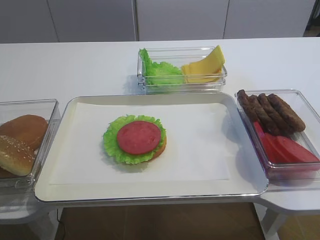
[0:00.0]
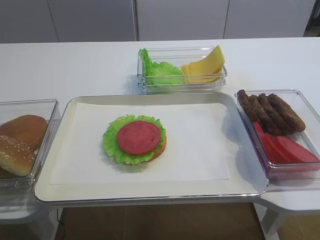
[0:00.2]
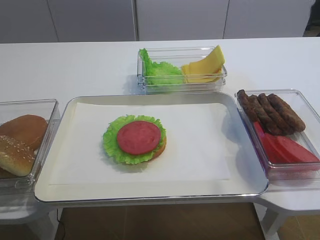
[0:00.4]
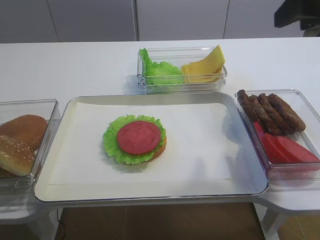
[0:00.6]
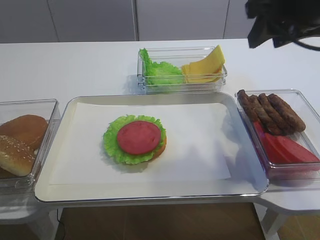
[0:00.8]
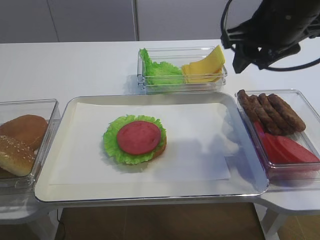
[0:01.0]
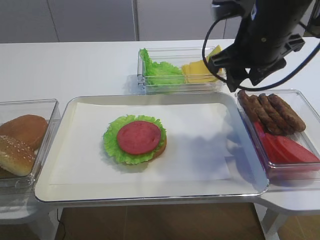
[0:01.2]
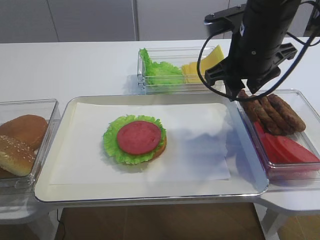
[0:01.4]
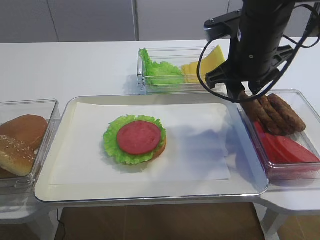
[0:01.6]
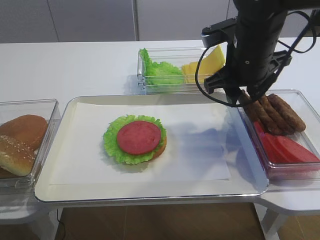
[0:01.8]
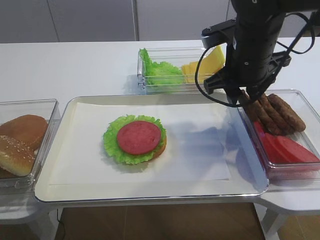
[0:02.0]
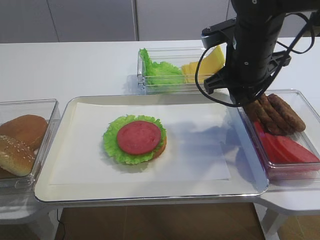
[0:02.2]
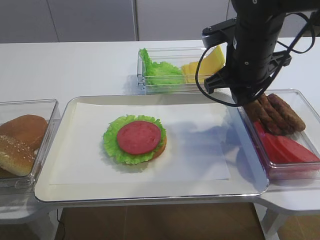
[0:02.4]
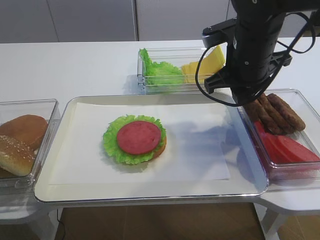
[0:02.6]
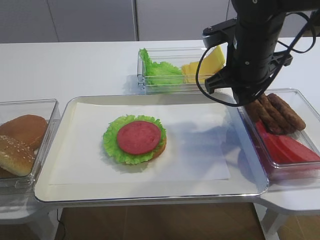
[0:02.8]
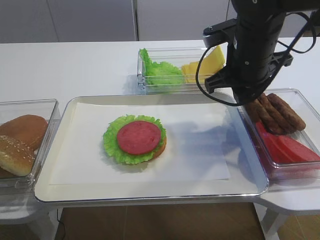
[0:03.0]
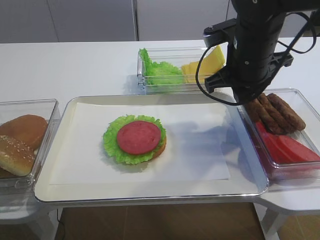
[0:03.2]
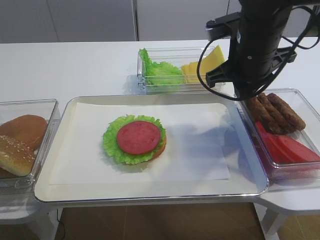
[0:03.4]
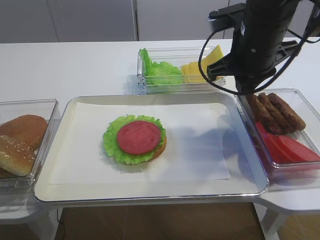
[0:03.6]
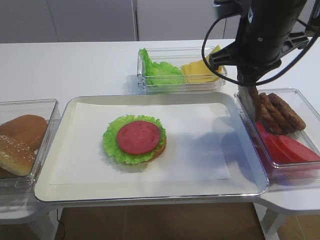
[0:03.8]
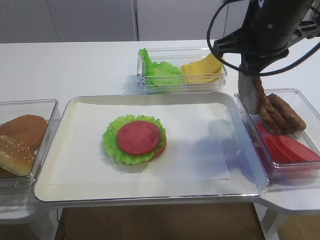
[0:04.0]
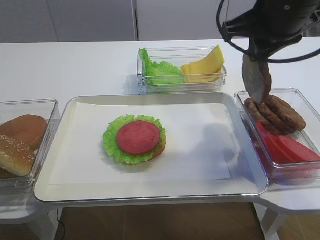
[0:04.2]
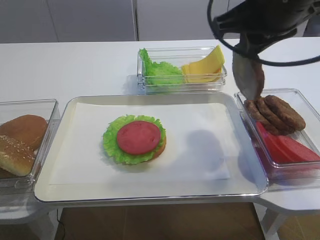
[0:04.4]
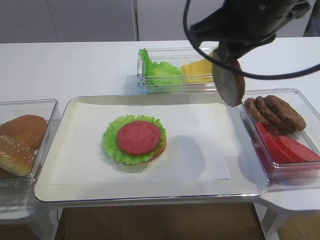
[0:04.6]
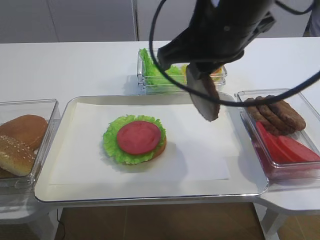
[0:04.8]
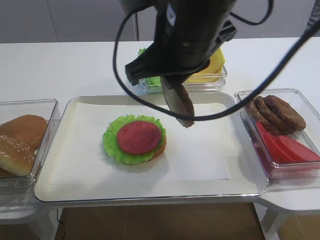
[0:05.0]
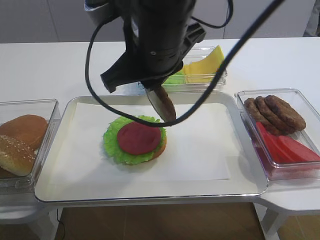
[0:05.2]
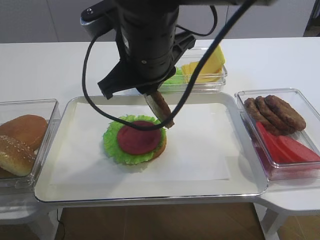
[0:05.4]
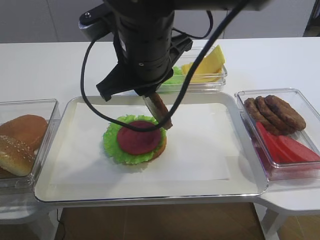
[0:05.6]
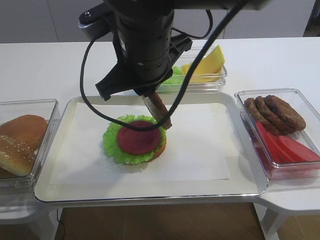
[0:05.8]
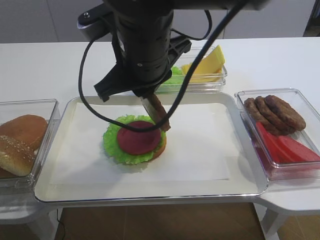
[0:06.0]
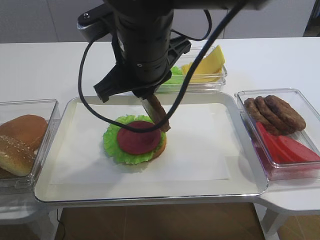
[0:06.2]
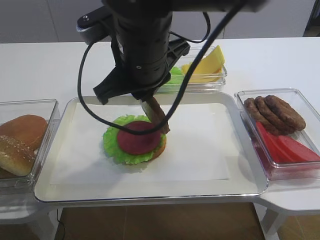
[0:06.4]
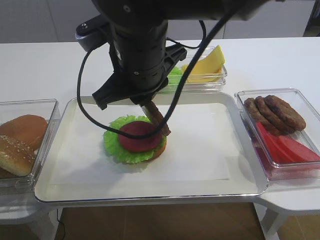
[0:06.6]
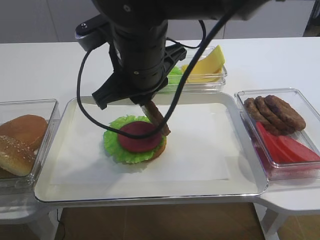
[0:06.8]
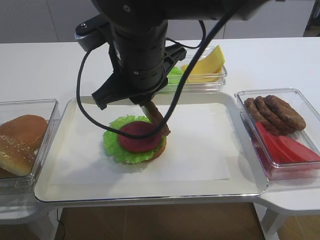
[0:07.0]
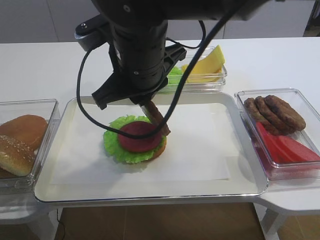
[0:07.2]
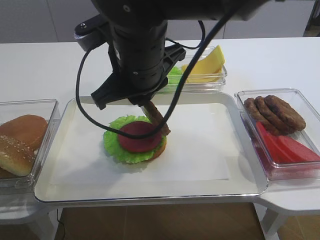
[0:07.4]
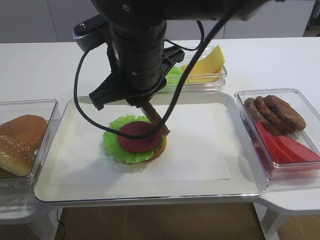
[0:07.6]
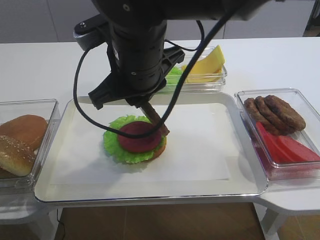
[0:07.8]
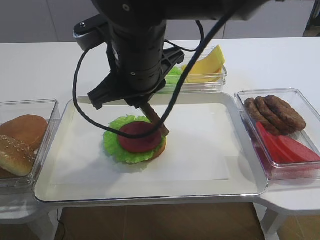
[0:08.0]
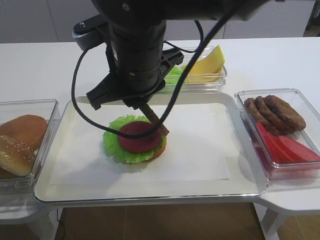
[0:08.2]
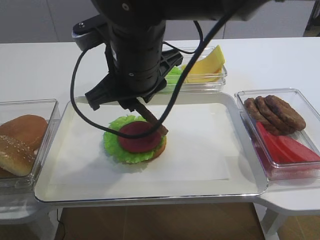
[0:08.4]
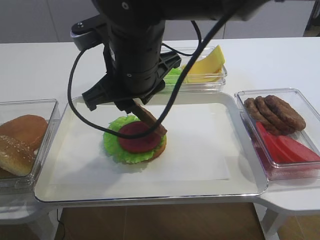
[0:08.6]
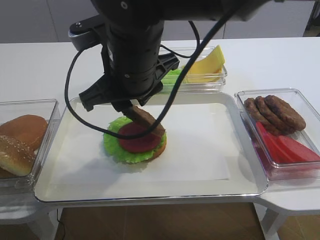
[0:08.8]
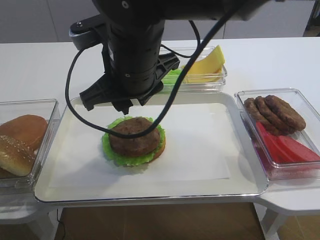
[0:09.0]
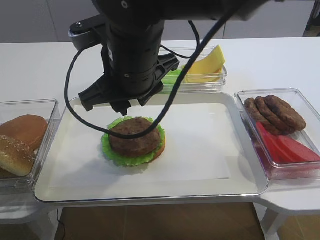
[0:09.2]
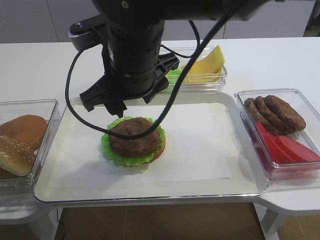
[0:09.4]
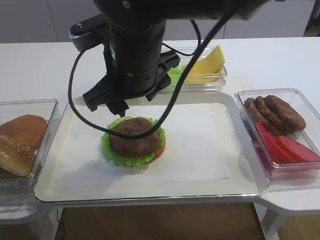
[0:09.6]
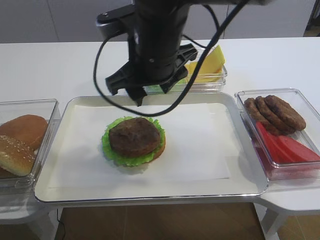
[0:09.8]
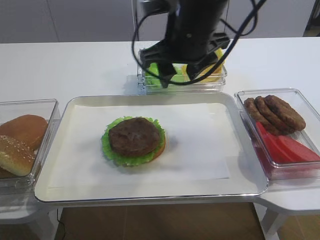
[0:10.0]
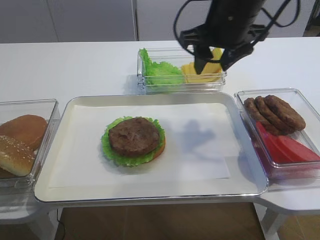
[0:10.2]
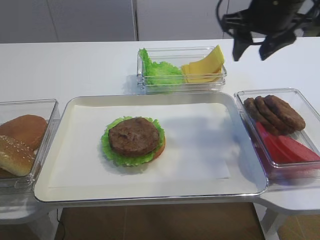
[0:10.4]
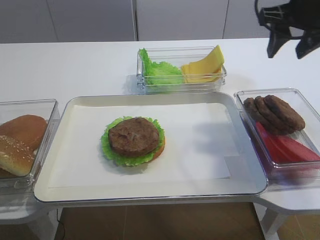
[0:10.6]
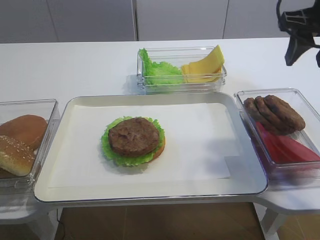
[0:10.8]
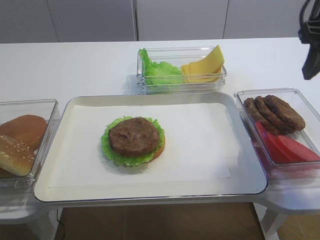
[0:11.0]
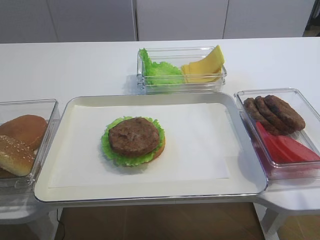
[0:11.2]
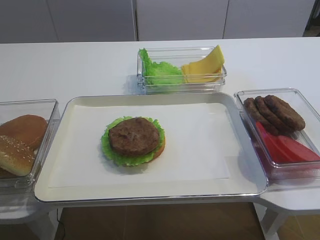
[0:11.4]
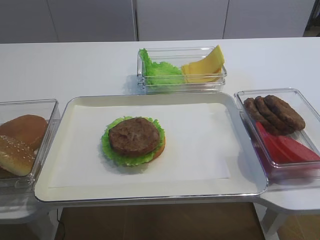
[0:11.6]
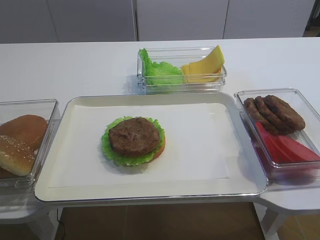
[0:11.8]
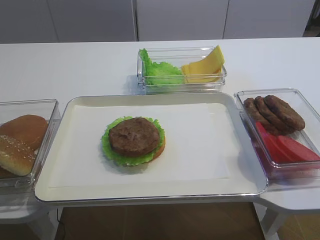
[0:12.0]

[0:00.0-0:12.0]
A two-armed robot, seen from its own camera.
Step, 0.0 to 4.0 s: Pick up the cutlet with the right gripper.
Step, 4.4 to 10.0 s: Place the cutlet on the tomato slice with the right gripper.
0.0 to 1.6 s: The right gripper heads forward and to the left, covering about 25 cm.
1.6 to 3.0 s: The right gripper closes.
3.0 to 4.4 s: The right gripper shifts approximately 10 cm upward and backward.
4.4 to 6.0 s: The right gripper heads to the left, covering approximately 15 cm.
6.0 to 7.6 s: The two grippers keep their place.
7.6 to 9.0 s: The right gripper opens up.
9.0 to 10.4 s: The right gripper shifts some 20 cm to the right and forward, and opens.
10.4 to 12.0 s: The right gripper travels backward by roughly 30 cm.

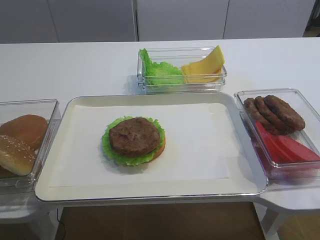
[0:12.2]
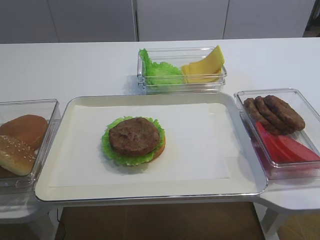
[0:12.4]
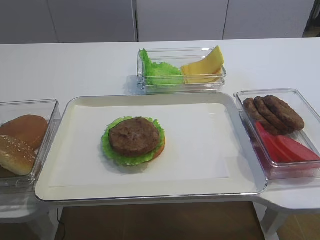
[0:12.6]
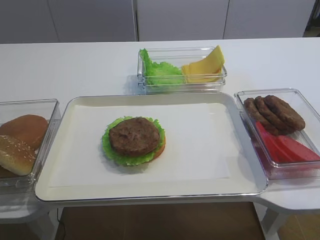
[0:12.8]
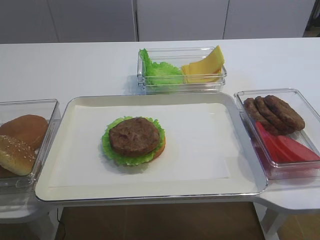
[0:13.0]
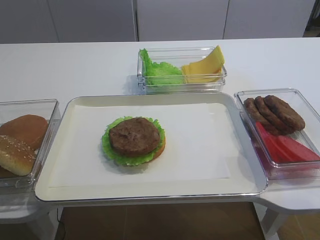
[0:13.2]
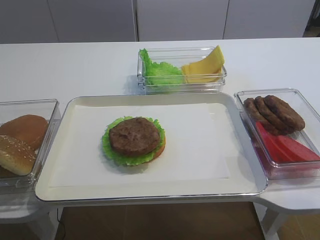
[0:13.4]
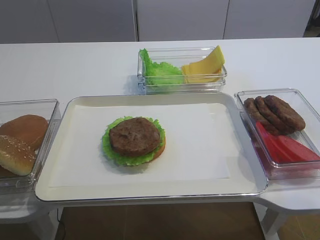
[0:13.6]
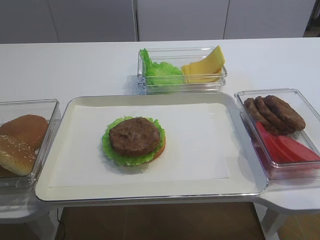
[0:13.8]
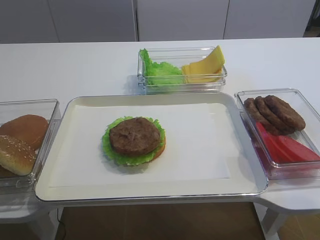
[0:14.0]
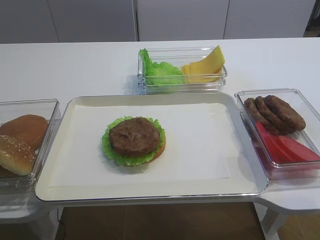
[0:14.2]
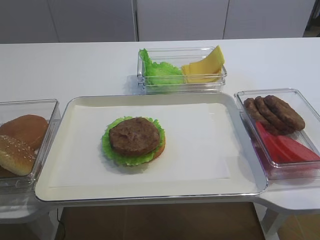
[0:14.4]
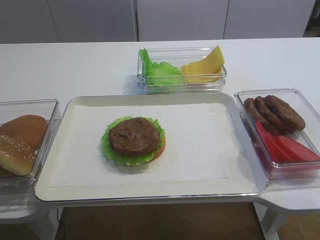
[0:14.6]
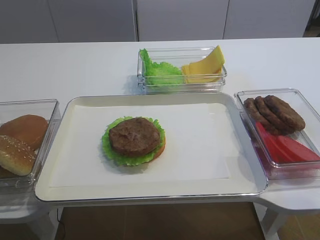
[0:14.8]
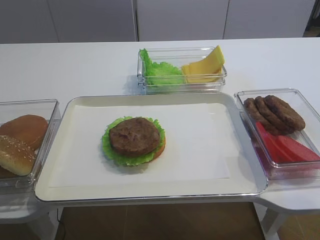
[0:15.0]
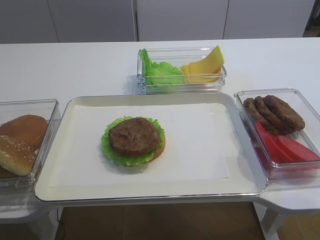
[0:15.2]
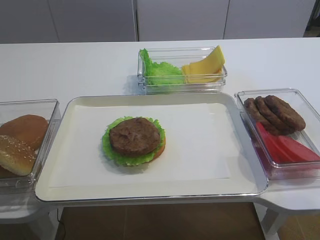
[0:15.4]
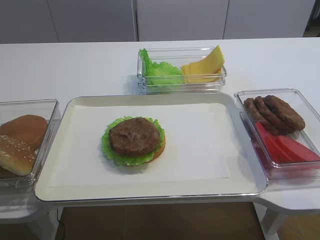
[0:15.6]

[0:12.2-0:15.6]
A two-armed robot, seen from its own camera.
13.8 to 15.6 s: Both grippers stay put.

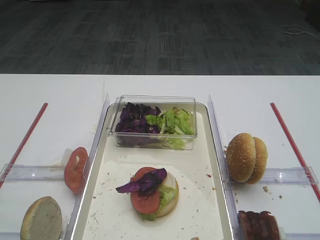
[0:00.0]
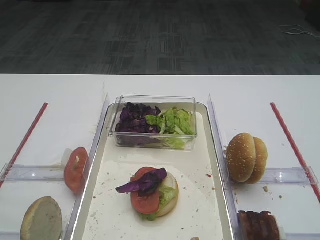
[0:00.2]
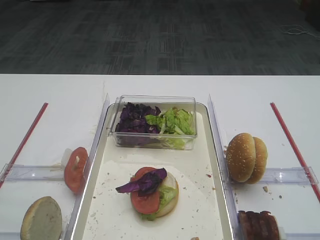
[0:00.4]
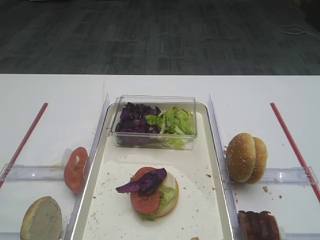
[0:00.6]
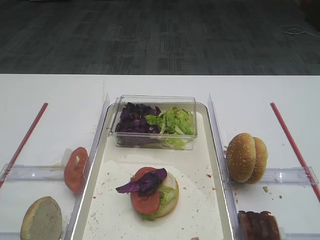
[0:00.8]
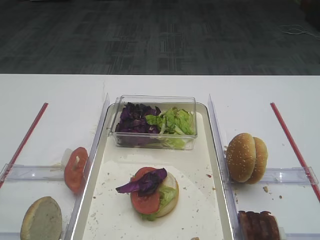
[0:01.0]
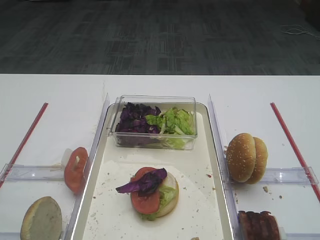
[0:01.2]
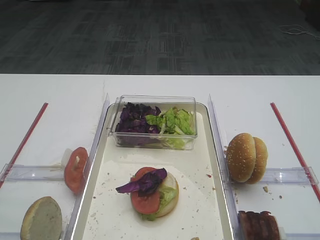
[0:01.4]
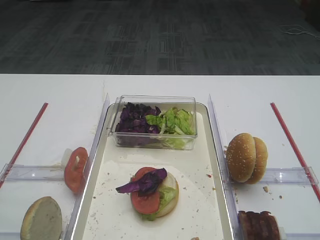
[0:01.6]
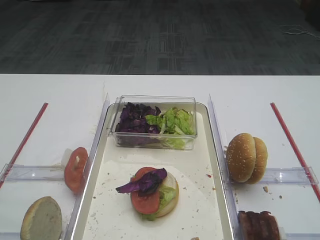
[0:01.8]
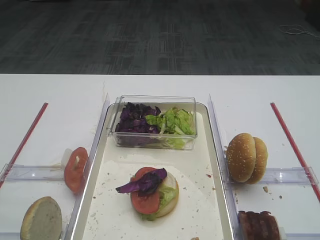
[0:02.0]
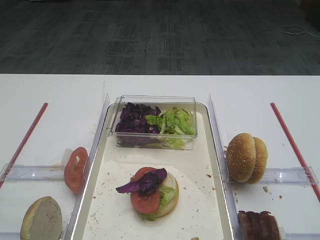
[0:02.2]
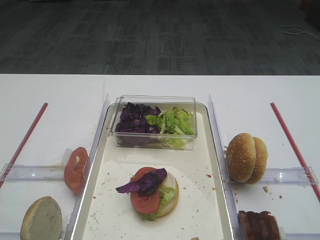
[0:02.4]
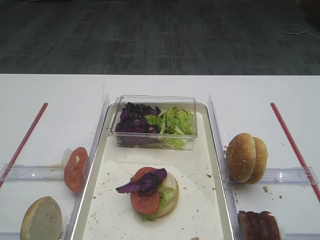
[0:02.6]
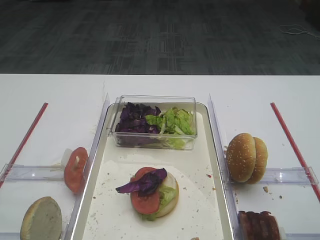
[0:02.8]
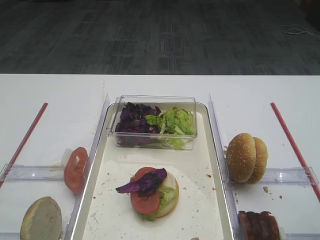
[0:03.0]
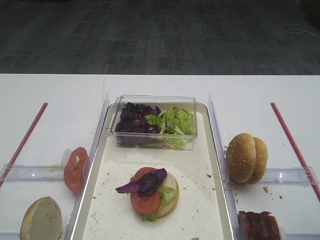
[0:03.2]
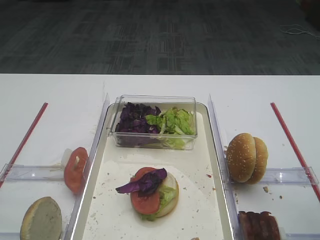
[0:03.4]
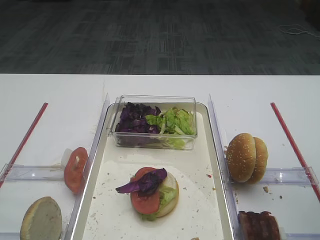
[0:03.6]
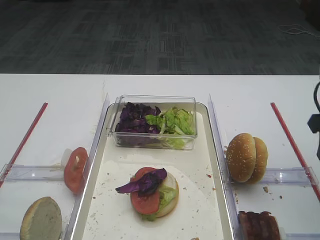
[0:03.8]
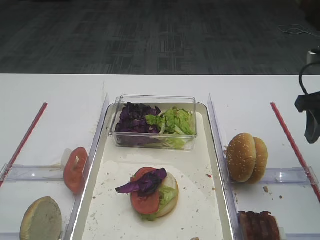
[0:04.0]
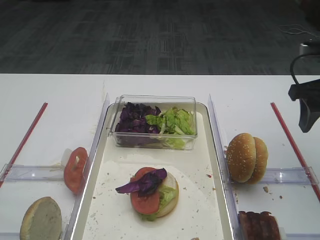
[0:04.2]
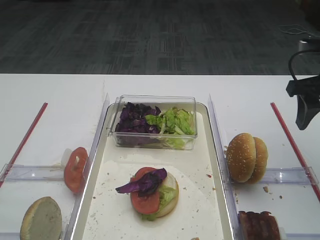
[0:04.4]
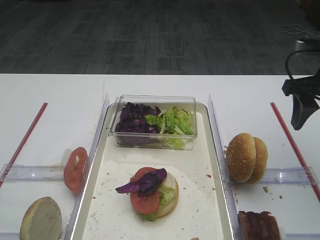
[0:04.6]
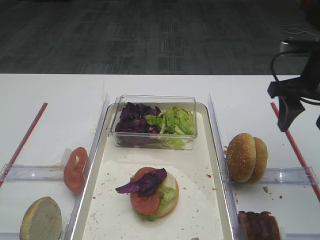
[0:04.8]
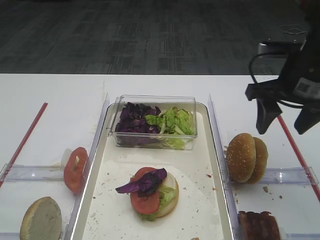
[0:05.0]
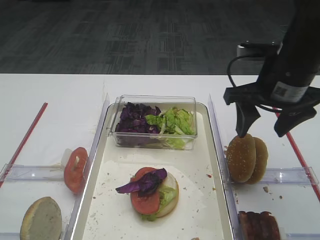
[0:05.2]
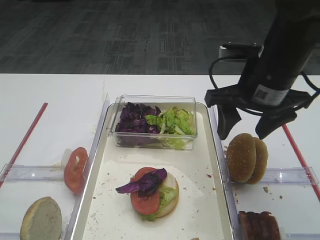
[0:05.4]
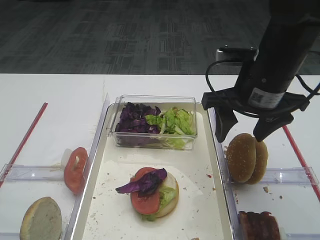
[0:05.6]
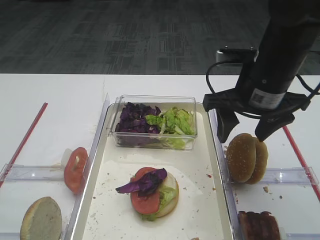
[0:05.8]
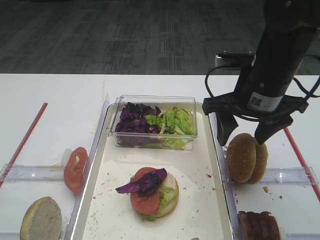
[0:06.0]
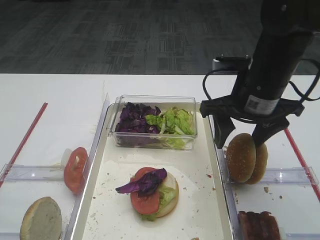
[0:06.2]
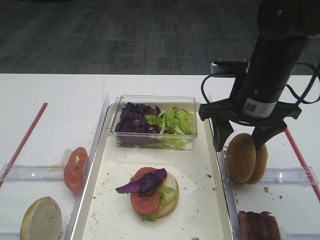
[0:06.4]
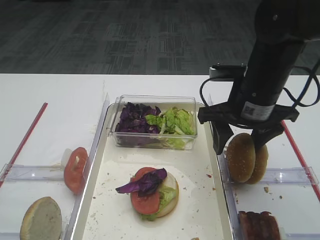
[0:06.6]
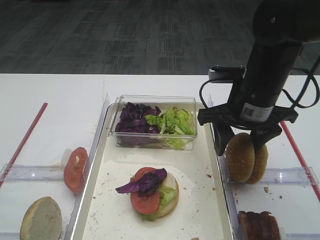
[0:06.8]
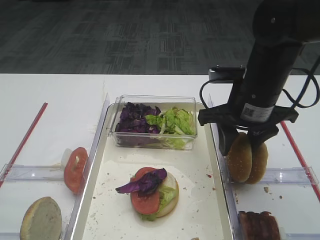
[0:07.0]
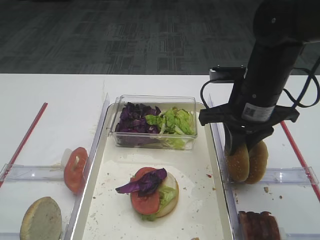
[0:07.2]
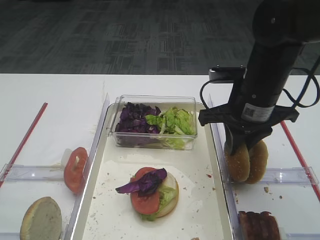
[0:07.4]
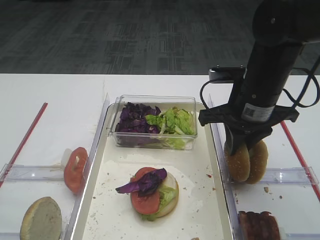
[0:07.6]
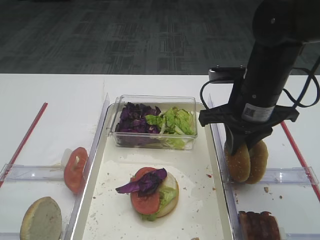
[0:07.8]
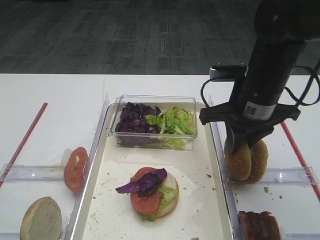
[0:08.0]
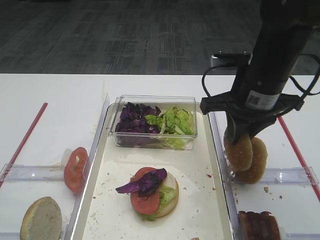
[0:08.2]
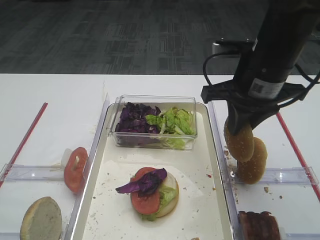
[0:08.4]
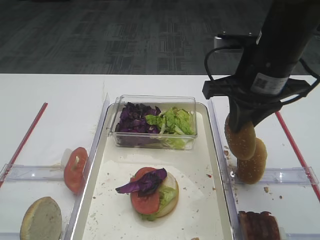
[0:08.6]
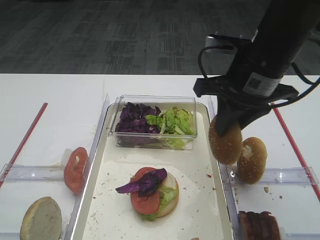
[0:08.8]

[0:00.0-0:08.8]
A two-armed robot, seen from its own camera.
Step, 0.0 to 8.8 s: Pick up the hamburger lid with the right gripper.
3.0 to 4.4 s: The right gripper goes roughly 20 cm forward.
4.4 to 5.8 s: The right gripper is displaced to the left by approximately 15 cm.
5.8 to 7.4 s: The right gripper closes.
7.4 to 8.8 s: The right gripper shifts roughly 5 cm upward.
